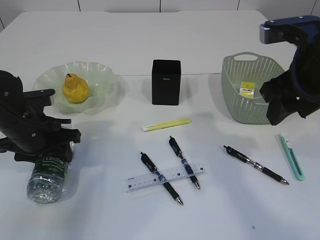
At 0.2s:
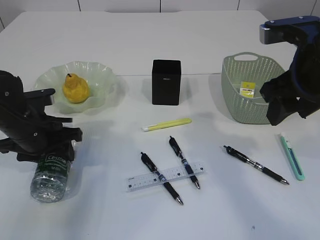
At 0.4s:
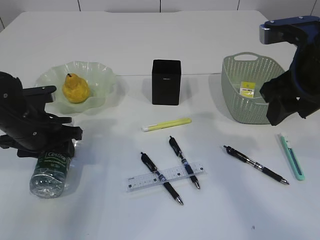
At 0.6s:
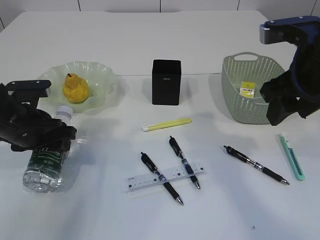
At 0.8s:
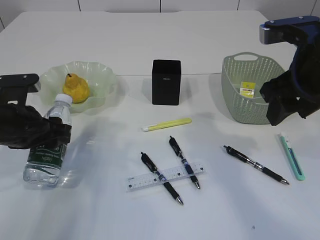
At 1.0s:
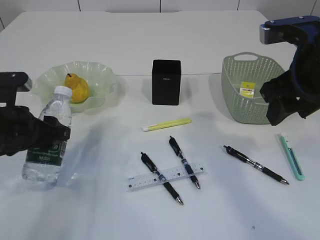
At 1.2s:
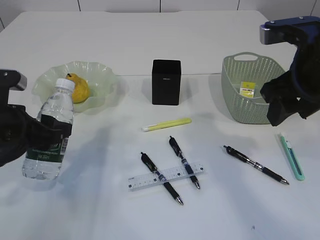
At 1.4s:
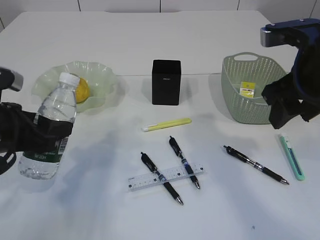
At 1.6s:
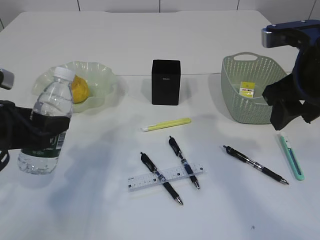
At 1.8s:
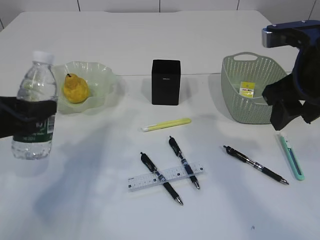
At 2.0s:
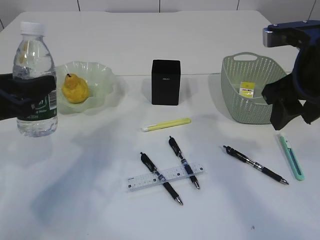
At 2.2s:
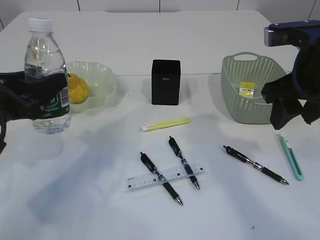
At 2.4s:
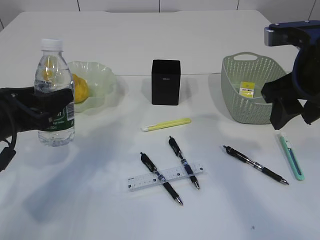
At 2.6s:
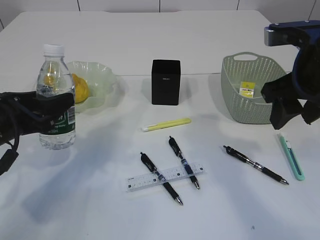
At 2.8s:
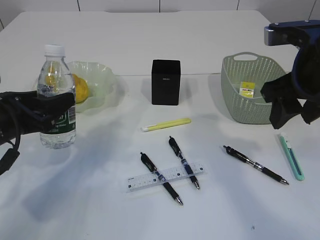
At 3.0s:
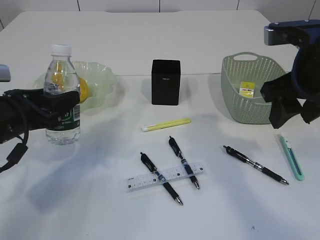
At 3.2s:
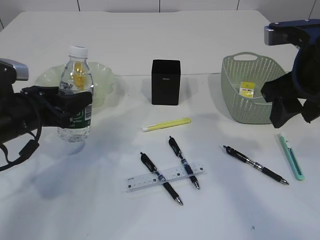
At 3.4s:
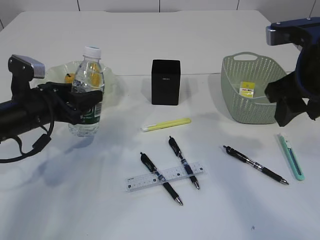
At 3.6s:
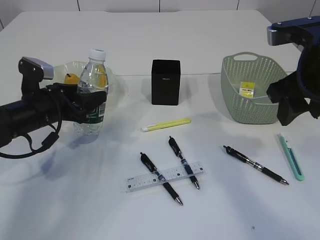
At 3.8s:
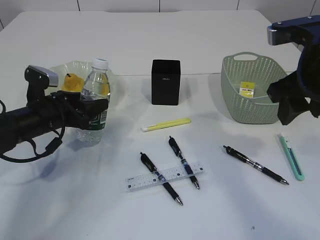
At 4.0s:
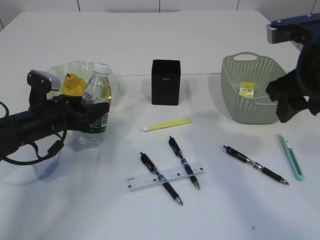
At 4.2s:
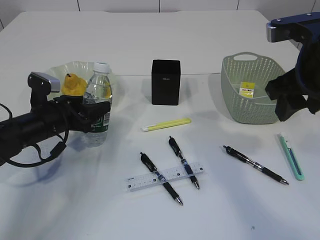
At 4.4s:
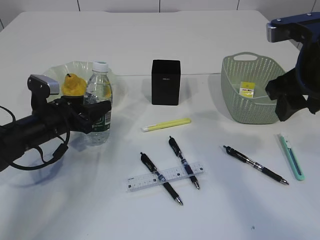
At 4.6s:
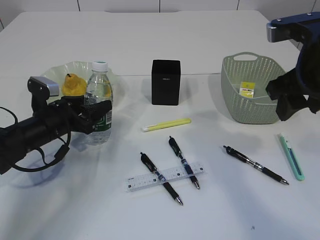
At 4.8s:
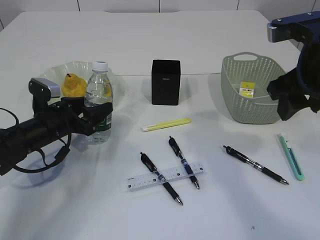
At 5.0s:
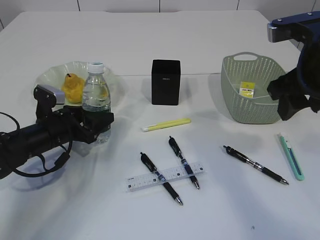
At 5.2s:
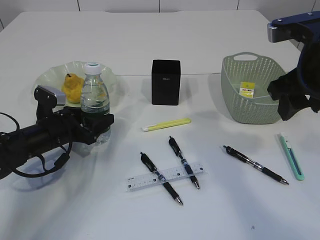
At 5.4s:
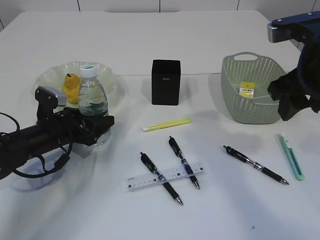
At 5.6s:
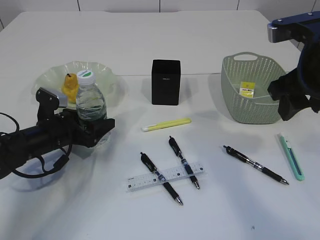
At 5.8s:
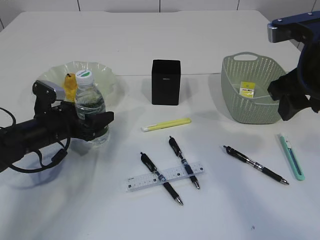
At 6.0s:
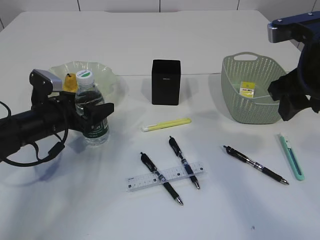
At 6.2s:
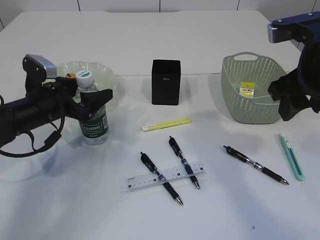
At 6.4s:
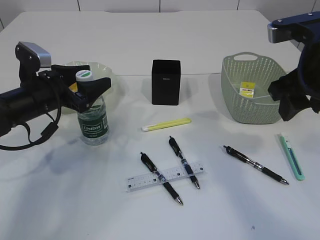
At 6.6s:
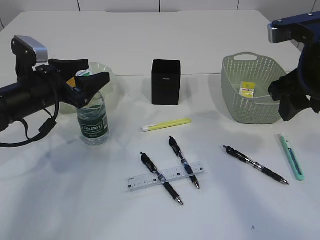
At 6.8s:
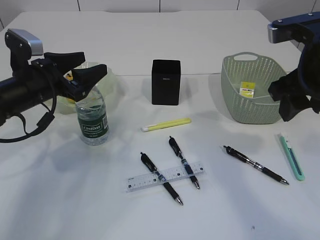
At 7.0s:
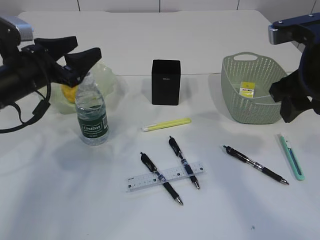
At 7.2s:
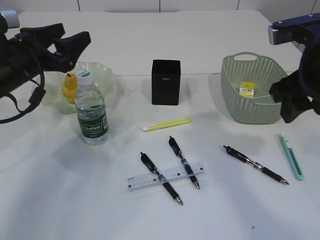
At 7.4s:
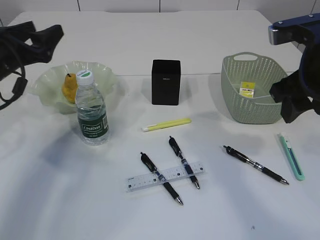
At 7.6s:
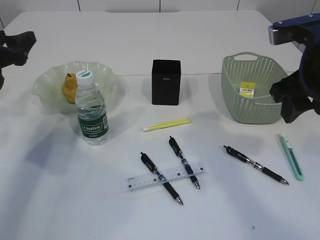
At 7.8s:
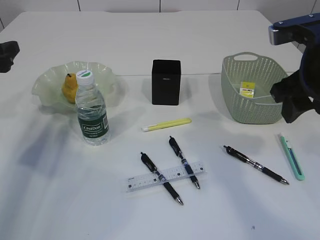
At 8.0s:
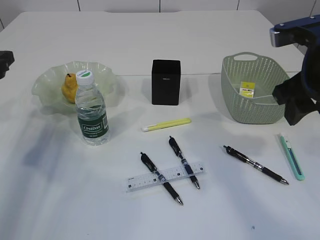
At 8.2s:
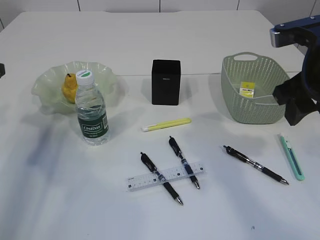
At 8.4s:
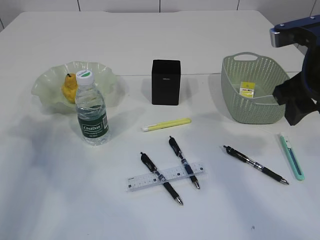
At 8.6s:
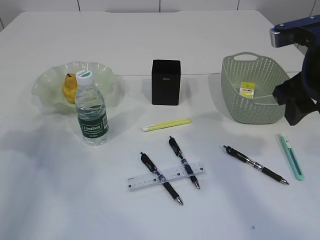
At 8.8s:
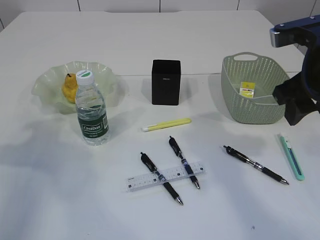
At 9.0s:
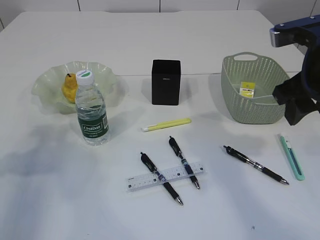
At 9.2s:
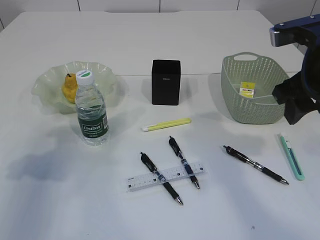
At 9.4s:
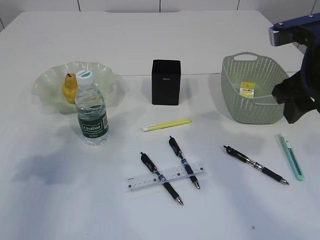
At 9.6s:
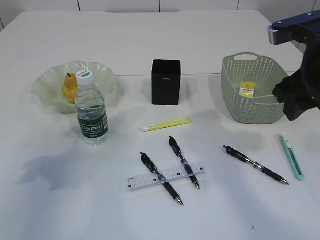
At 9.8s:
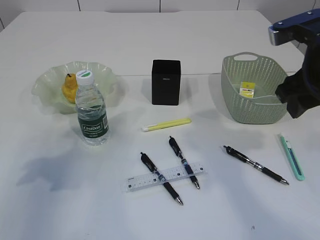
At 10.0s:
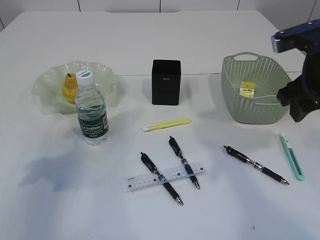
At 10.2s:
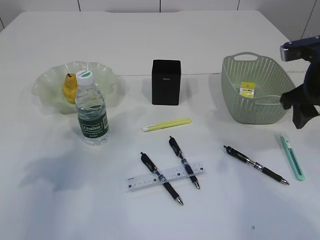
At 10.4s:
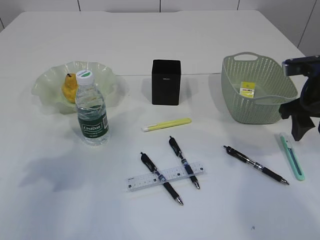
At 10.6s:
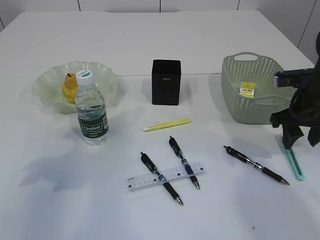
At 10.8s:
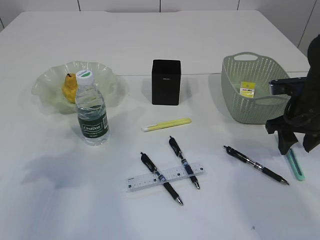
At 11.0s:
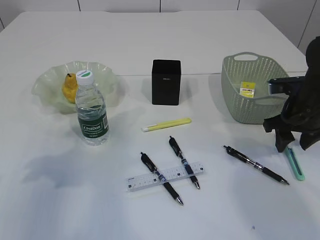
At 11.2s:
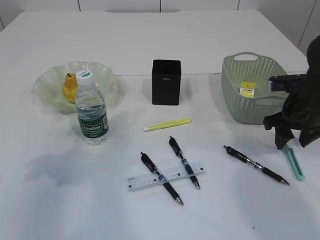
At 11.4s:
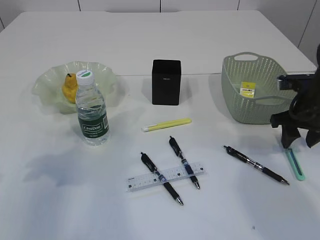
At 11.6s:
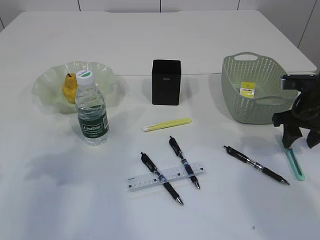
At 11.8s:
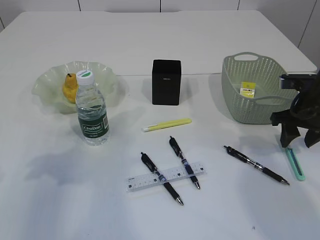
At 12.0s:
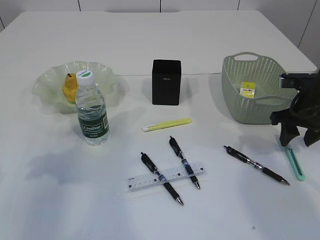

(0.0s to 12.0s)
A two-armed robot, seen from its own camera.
Step, 1.6s - 7.2s: Place the bottle.
0.0s - 1.6s: The left gripper shifts approximately 10 cm backward and upward.
1.6s - 3.0s: The left gripper shifts by roughly 5 cm.
3.0s - 4.4s: The left gripper is displaced downward and forward by some 10 cm.
4.4s - 6.0s: The left gripper opens its fingers.
6.0s - 7.6s: The left gripper moves upward and to the left, about 15 cm.
7.6s - 9.0s: The left gripper goes roughly 10 cm backward.
9.0s - 10.4s: The right gripper shifts roughly 10 cm downward, to the right and forward. Meanwhile the left gripper is displaced to the right by some 5 cm.
10.4s - 12.0s: The right gripper moves downward, roughly 5 cm.

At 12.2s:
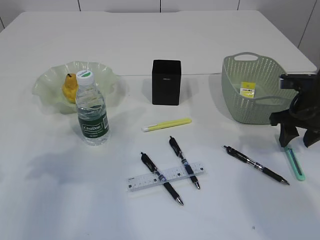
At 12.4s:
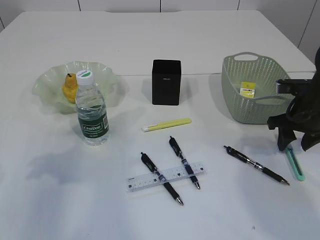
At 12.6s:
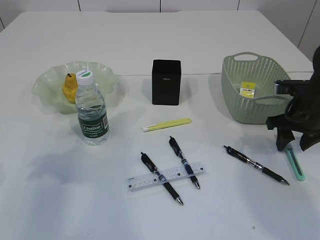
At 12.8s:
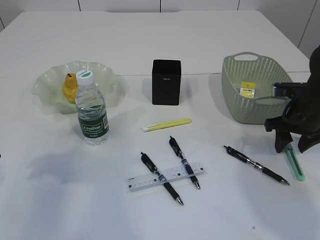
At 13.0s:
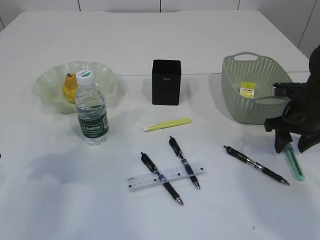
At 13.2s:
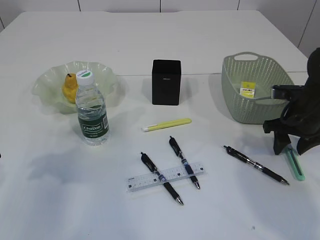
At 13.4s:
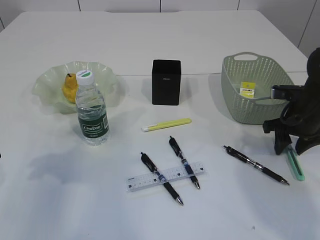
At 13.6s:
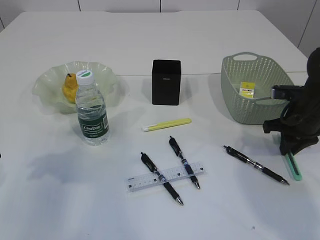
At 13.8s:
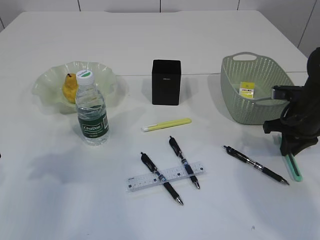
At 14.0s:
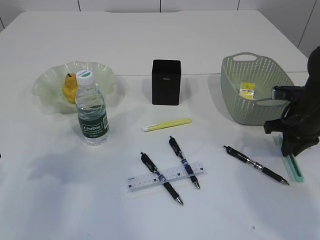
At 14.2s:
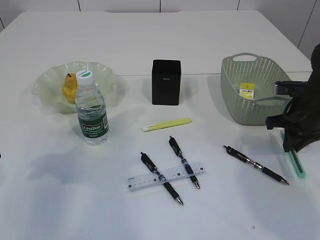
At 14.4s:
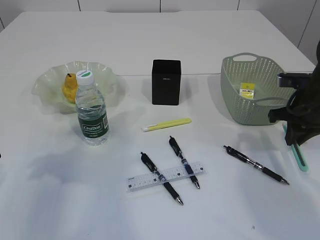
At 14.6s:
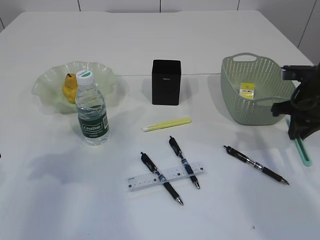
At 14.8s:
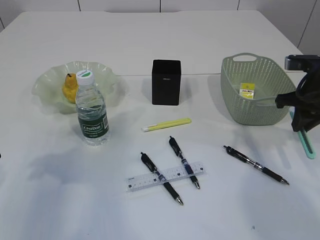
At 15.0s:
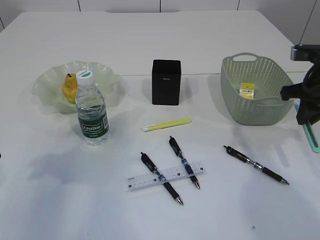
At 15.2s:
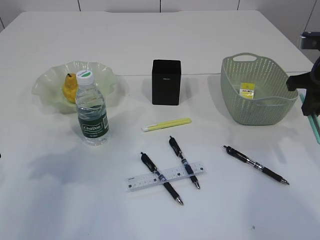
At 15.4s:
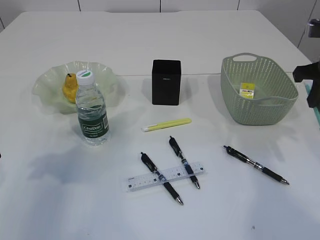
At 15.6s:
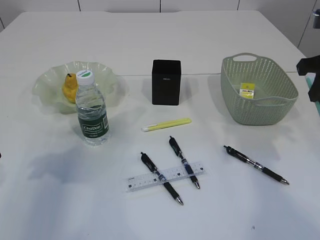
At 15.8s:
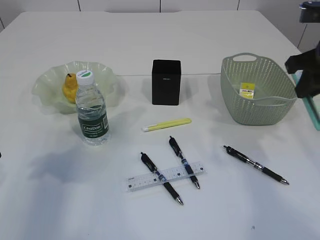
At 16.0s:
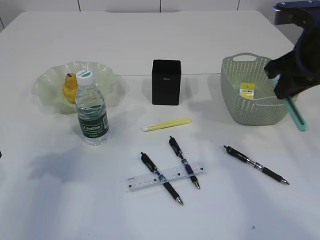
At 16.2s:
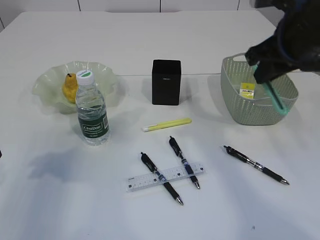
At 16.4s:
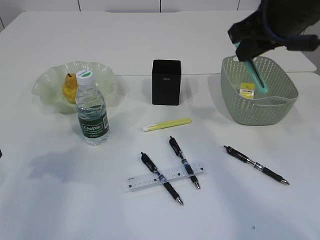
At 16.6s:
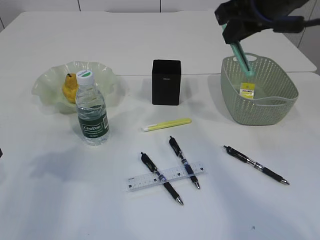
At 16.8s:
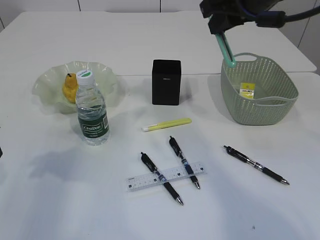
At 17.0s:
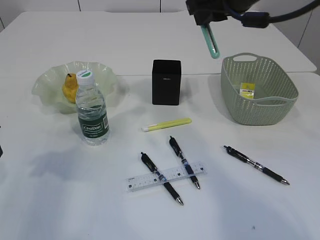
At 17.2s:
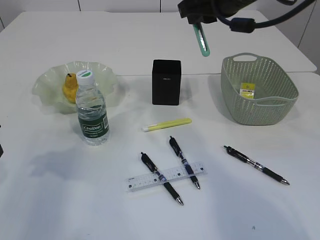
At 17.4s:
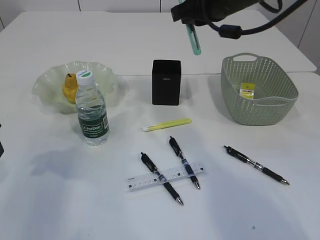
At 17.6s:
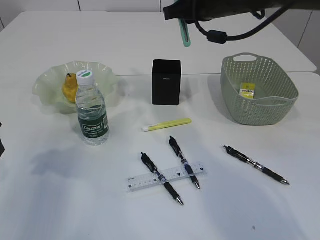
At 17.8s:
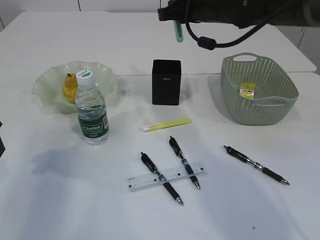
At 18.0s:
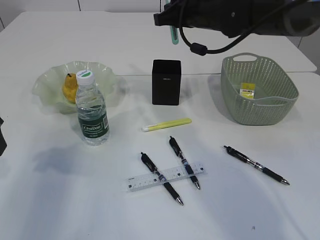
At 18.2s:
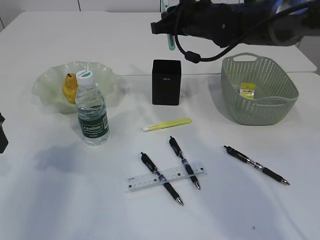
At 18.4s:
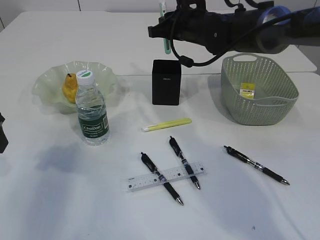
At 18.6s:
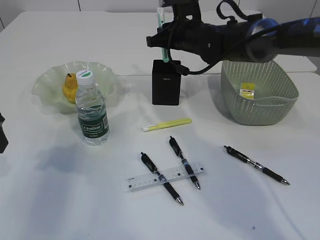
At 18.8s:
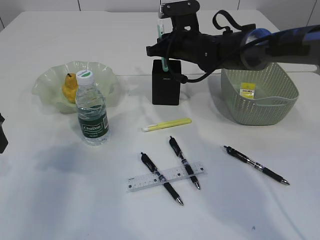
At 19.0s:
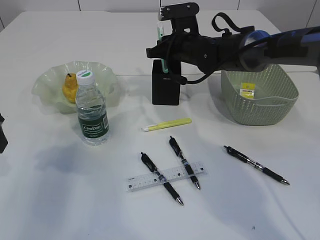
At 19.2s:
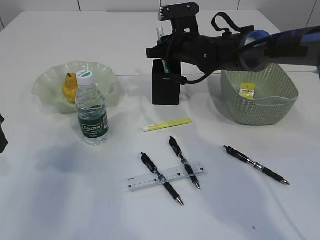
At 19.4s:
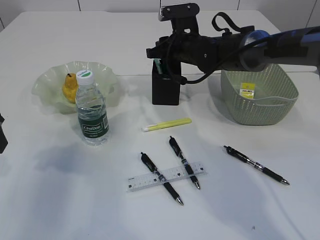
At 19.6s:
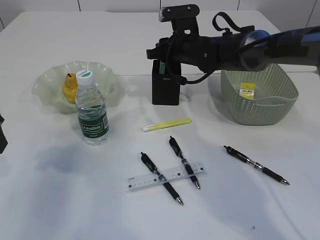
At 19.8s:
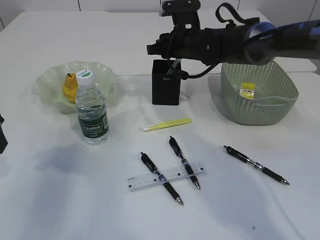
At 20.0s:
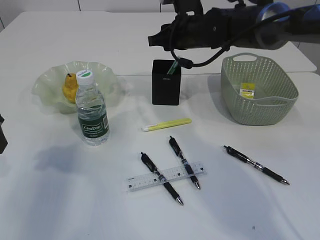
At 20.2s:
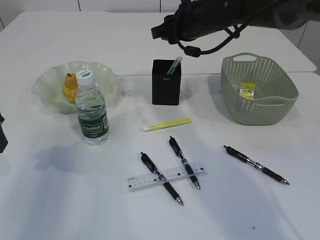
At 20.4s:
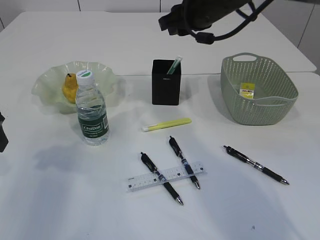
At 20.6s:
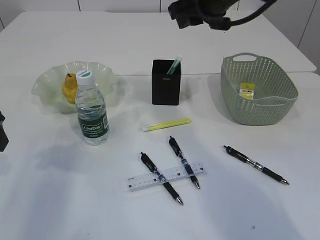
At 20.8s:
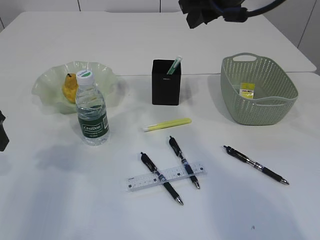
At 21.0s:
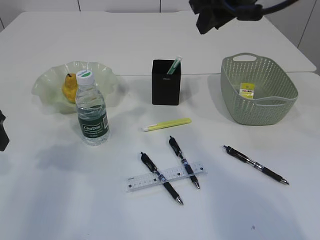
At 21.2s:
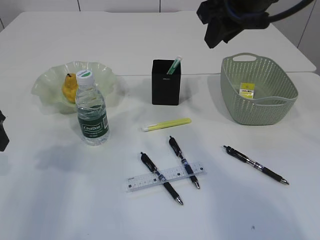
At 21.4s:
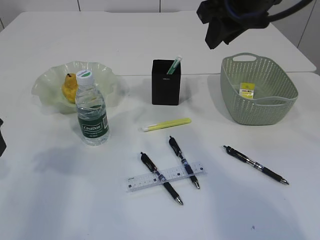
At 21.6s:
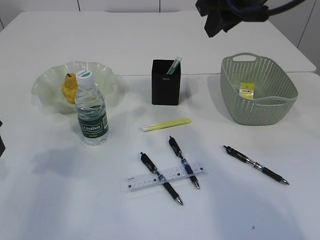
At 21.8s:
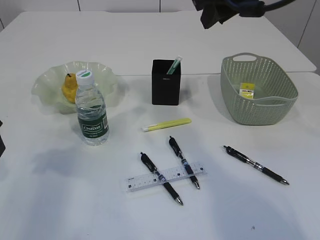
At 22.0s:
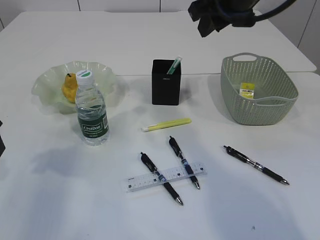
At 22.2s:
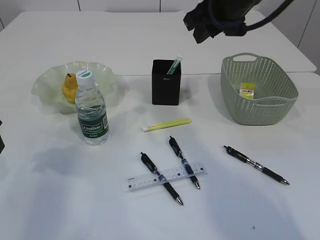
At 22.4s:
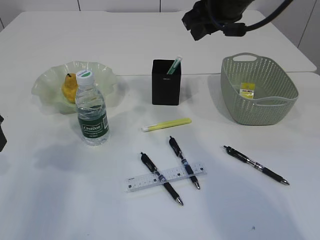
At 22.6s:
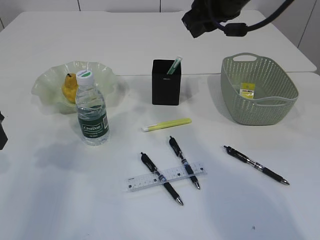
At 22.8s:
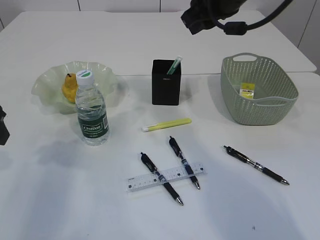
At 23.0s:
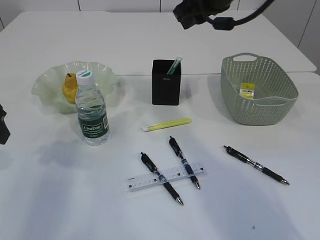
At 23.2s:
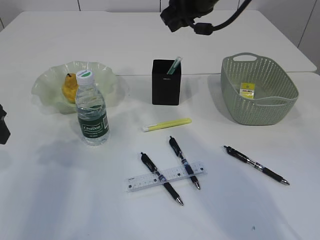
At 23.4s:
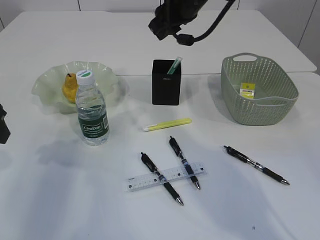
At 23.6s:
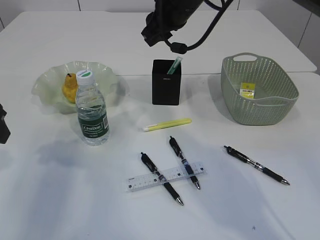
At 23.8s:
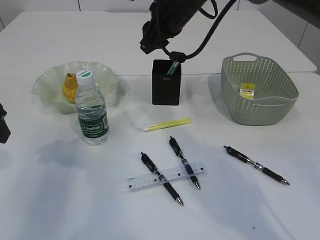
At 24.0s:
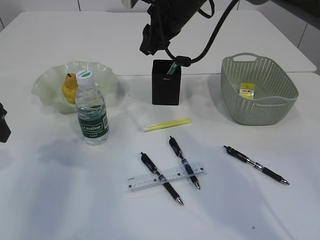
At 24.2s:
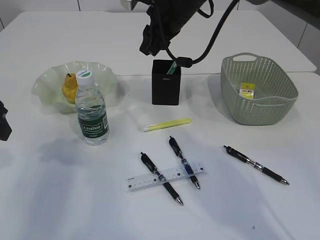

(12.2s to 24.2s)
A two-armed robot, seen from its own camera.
Step, 12.2s - 14.8s: pick up the blue knife.
Step, 15.0s - 21.2s: Place the blue knife into the pen holder.
12.2s - 13.8s: The right gripper closes.
13.8s - 15.2s: The right gripper goes approximately 10 cm upward.
15.2s - 16.6s: The right gripper goes about 20 cm to the left and upward.
16.6s - 18.2s: The right gripper heads forward, downward and to the left, covering approximately 20 cm.
18.2s - 19.8s: The right gripper heads downward, covering about 5 cm.
19.8s - 21.2s: The right gripper moves upward and backward, approximately 20 cm.
21.2s - 22.6s: The right gripper moves some 5 cm.
22.6s - 24.2s: The right gripper goes approximately 10 cm to the left and forward.
